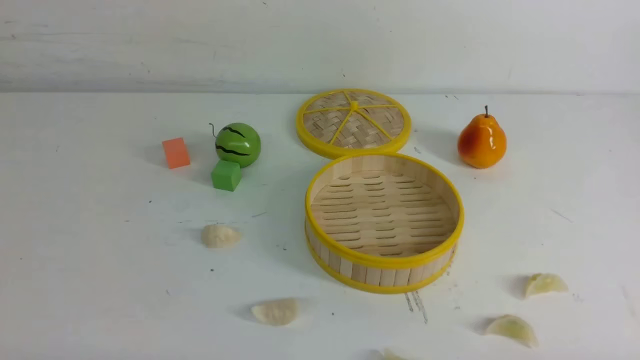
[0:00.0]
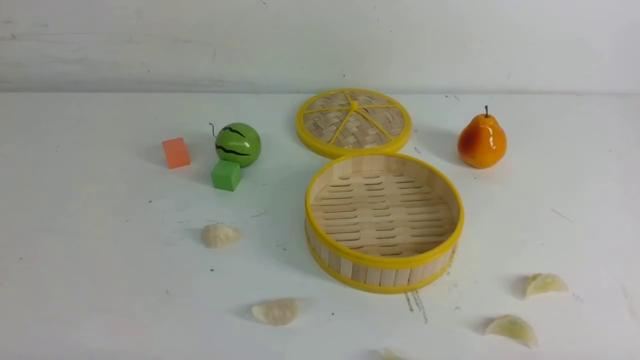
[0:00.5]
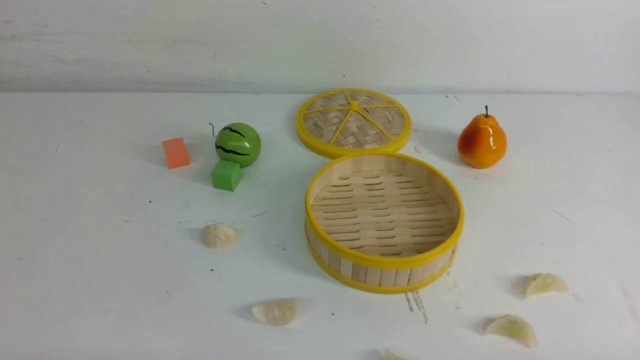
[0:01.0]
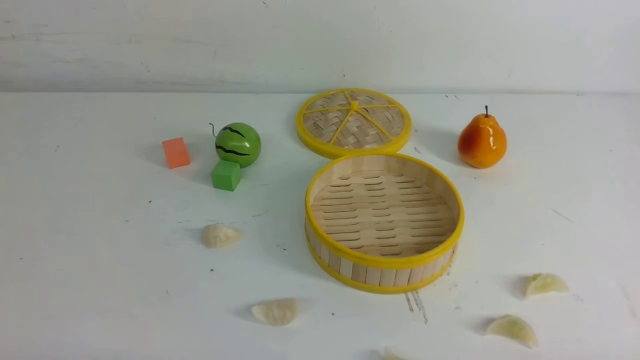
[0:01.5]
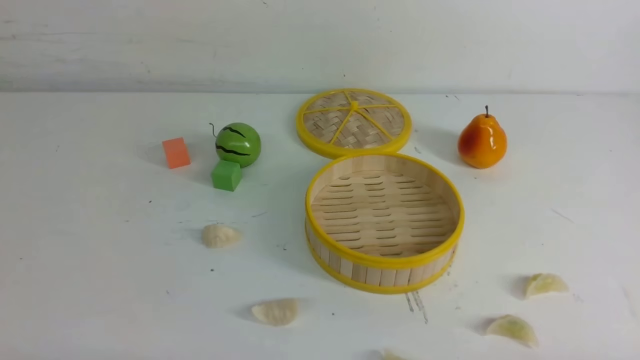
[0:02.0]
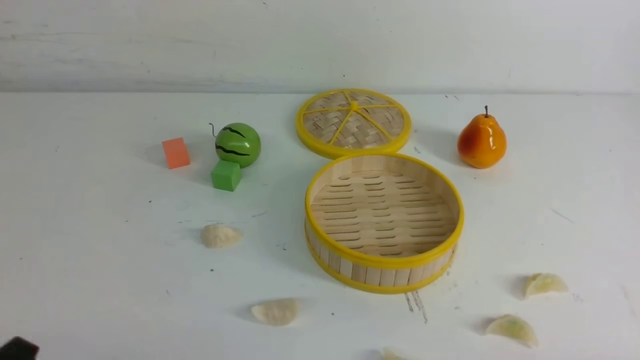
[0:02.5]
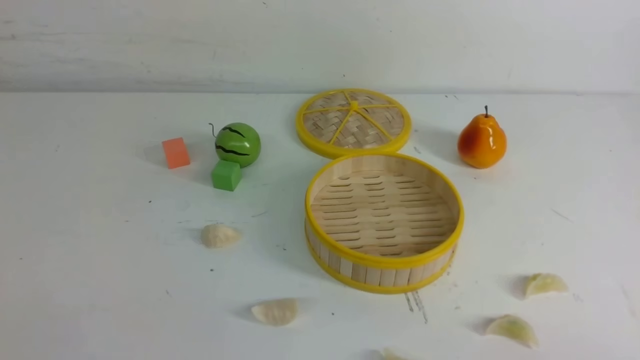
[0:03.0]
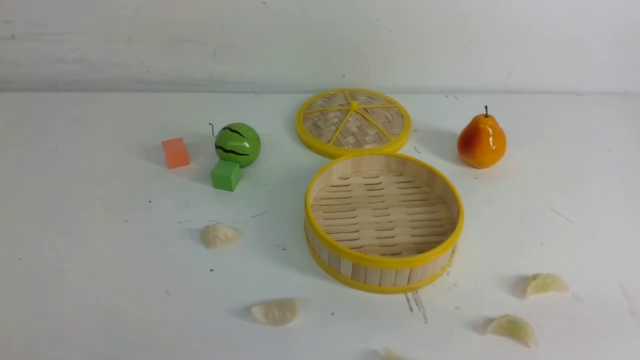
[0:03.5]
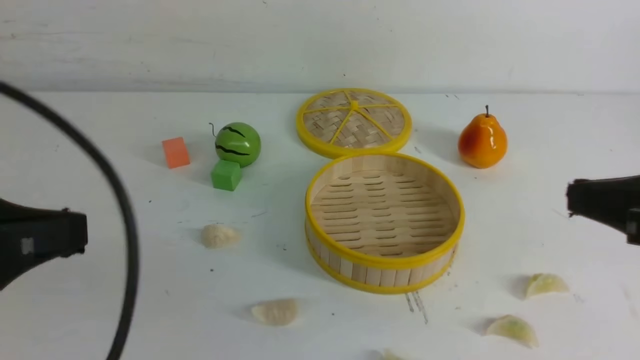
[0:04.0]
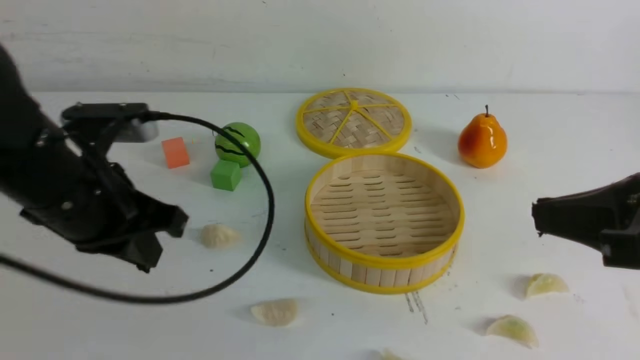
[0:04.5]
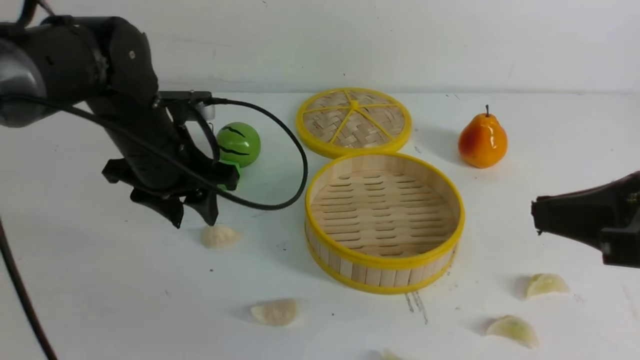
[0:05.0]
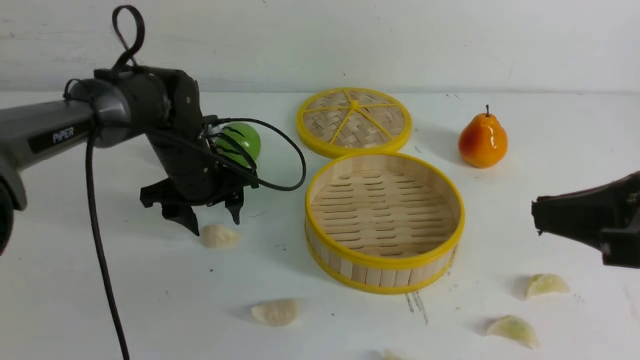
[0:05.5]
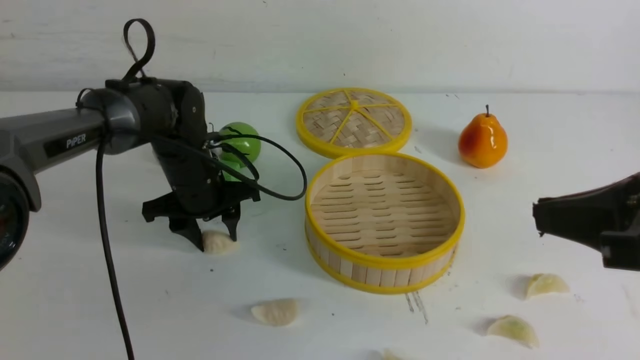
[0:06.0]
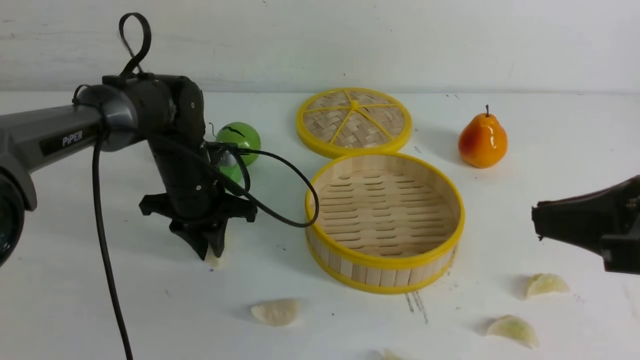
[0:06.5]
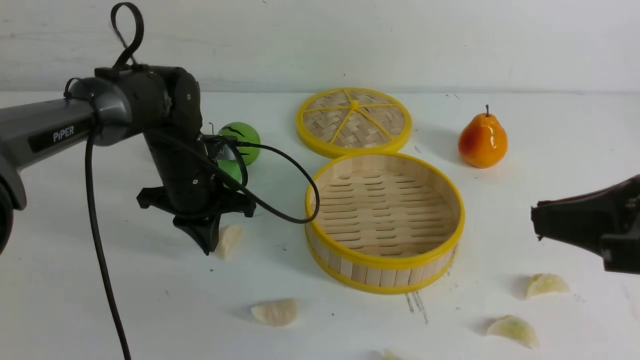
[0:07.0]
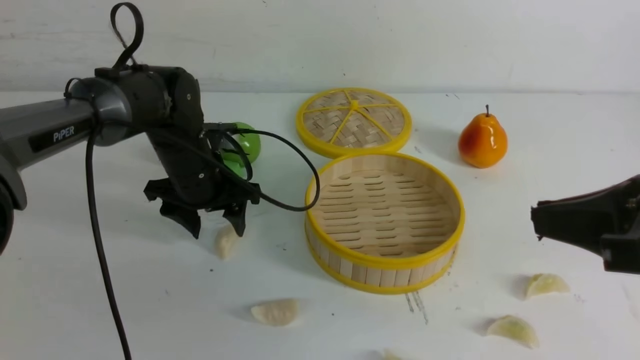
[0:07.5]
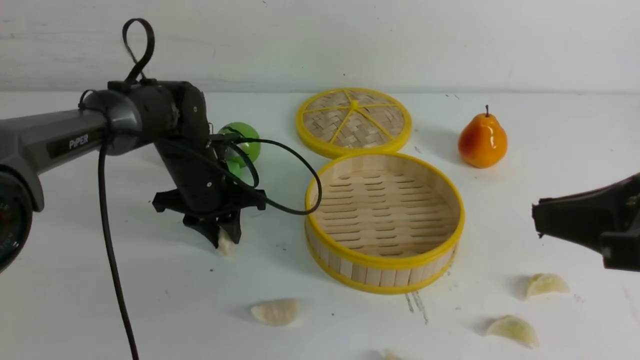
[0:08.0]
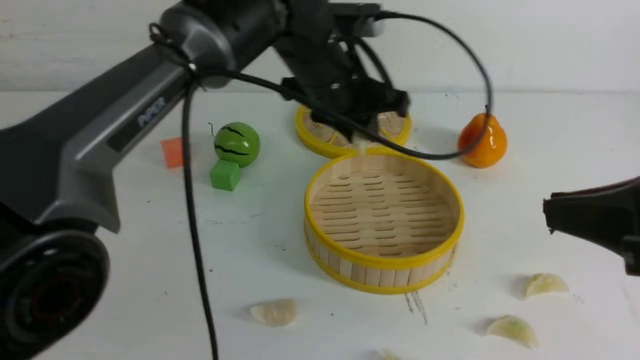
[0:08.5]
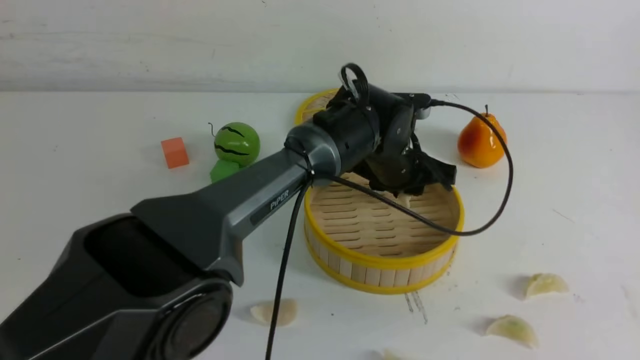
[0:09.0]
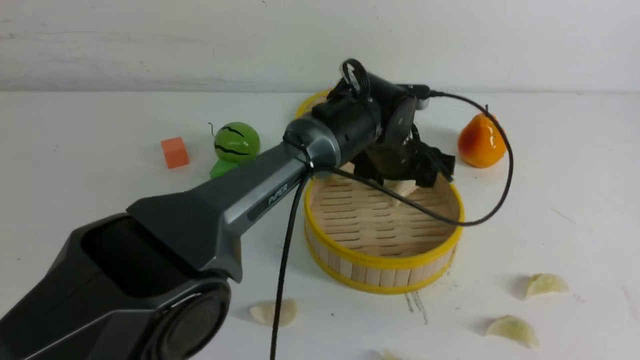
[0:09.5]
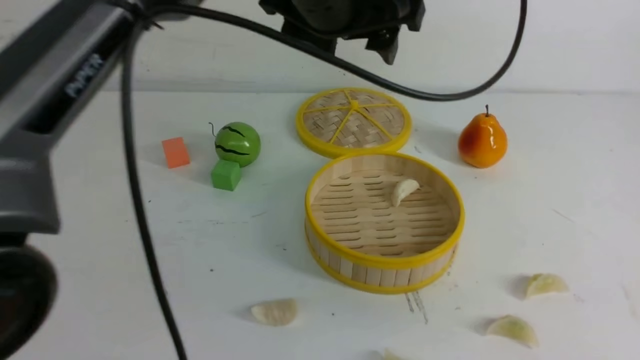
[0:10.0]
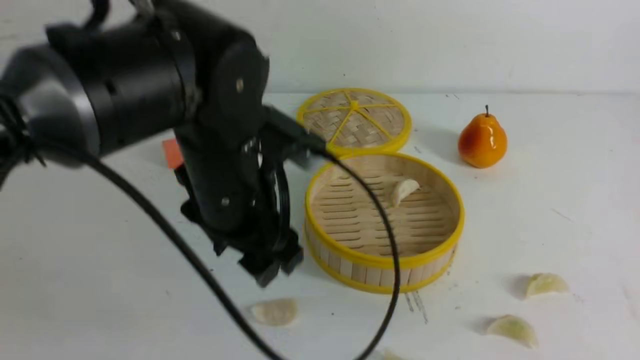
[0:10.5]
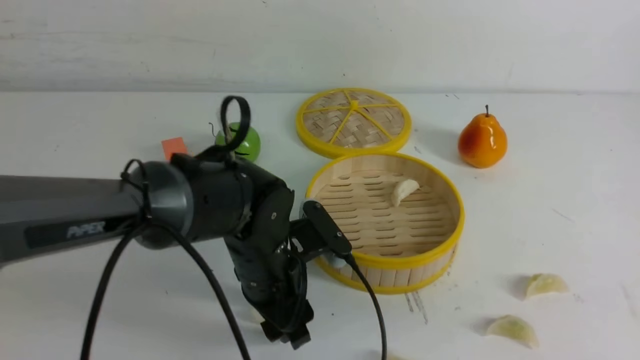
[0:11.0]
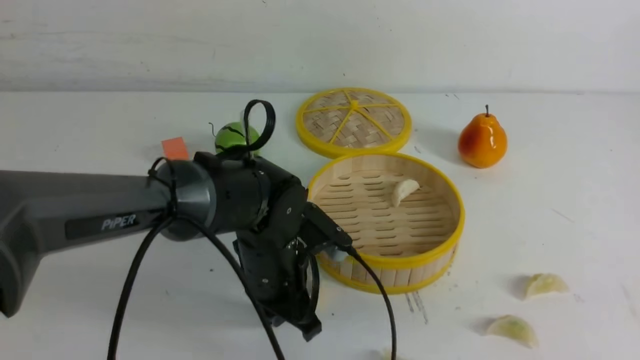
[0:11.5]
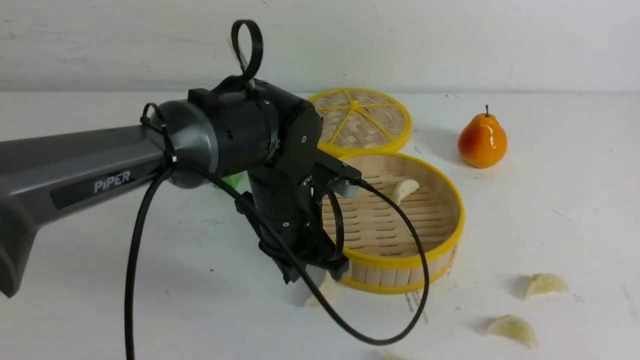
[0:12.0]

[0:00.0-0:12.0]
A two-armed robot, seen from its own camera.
Task of the whole recording: put the dumplings into the steamer on the white table.
Step, 0:00.0 to 0:08.0: use the left arm to grab a dumpling.
Step, 0:08.5 to 0:09.5: use the left arm to put the dumpling into the steamer.
0:00.0 to 0:02.0: Both grippers stay put.
0:02.0 to 0:04.0: The right gripper goes roughly 20 cm upward and forward, and closes; the left gripper heads upward, covering about 20 cm, and closes its fingers.
0:04.0 to 0:06.0: The left gripper heads forward and downward, covering about 35 cm, and opens up.
0:06.0 to 0:08.0: The left gripper closes and opens again.
0:08.0 to 0:10.0: The left gripper swings up and down, approximately 25 cm each way, with 2 reversals, and opens up; the right gripper is displaced backward by roughly 10 cm.
0:10.0 to 0:12.0: The left gripper travels downward by roughly 20 cm, and closes its fingers.

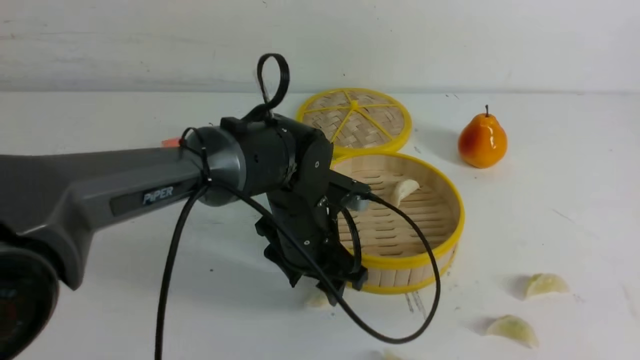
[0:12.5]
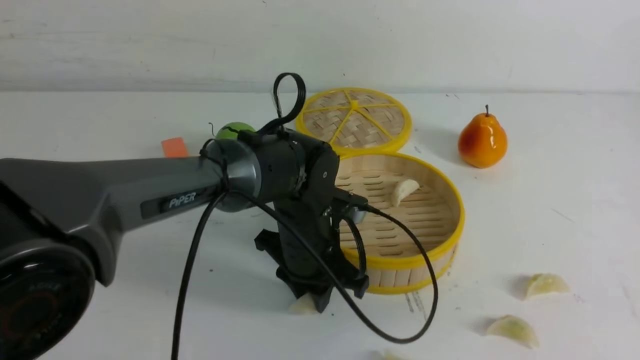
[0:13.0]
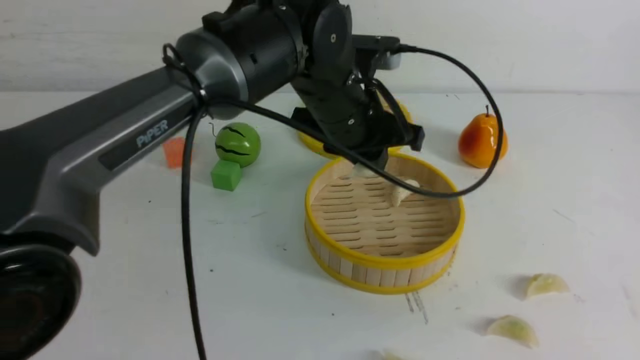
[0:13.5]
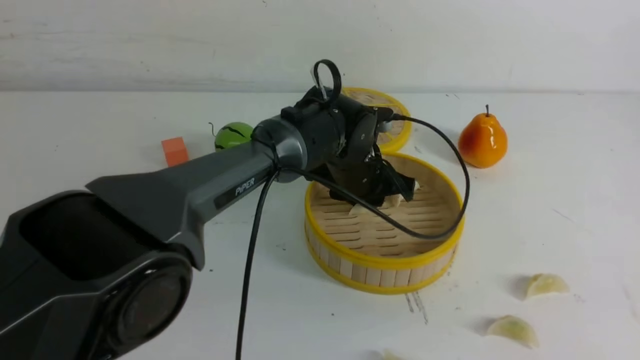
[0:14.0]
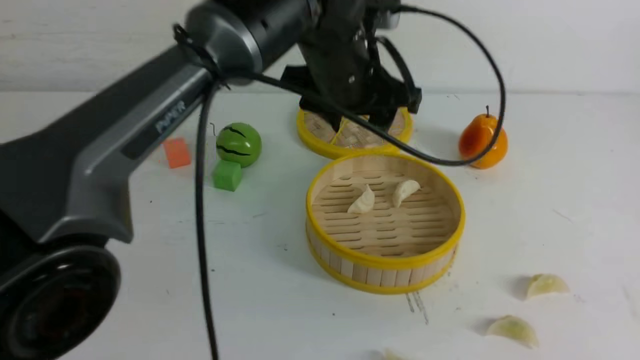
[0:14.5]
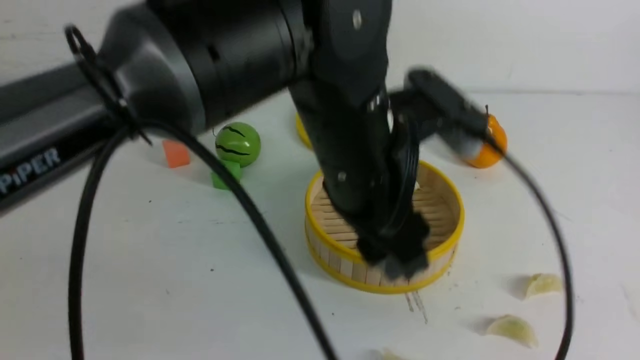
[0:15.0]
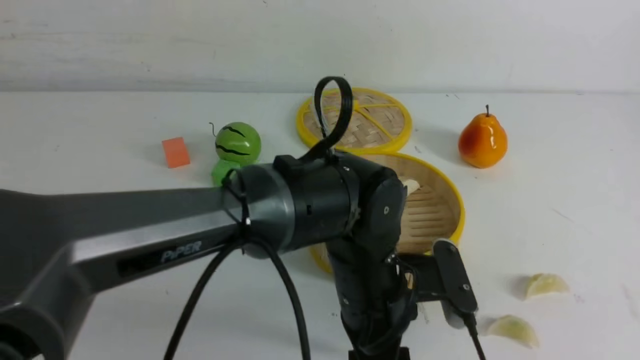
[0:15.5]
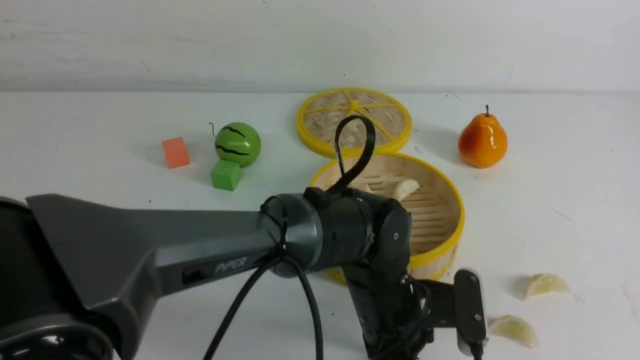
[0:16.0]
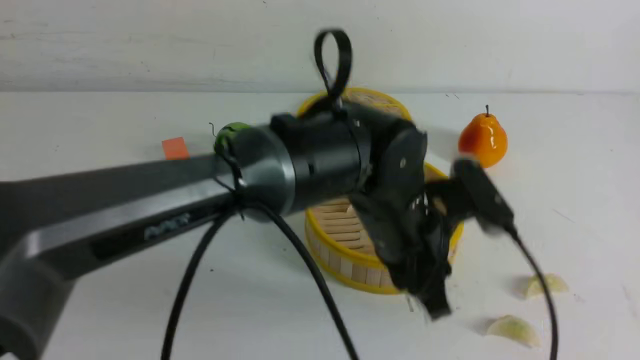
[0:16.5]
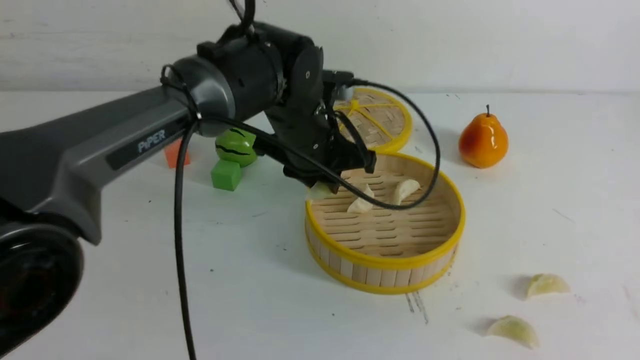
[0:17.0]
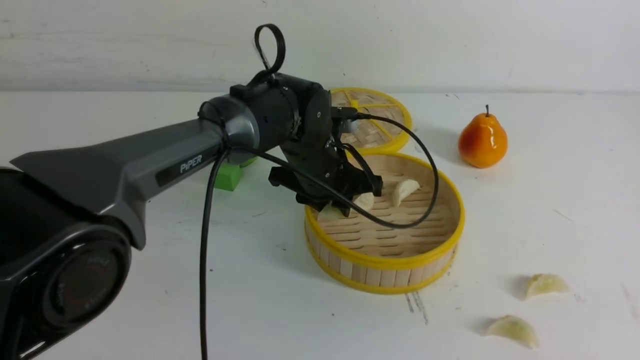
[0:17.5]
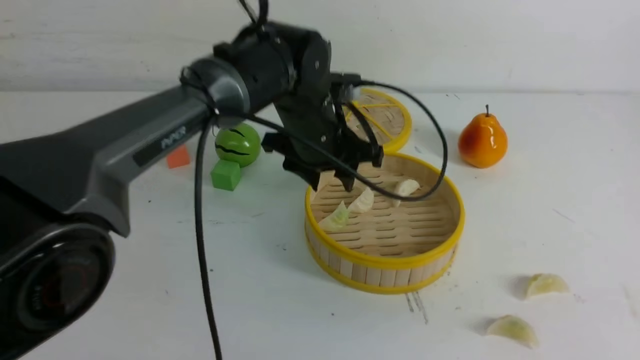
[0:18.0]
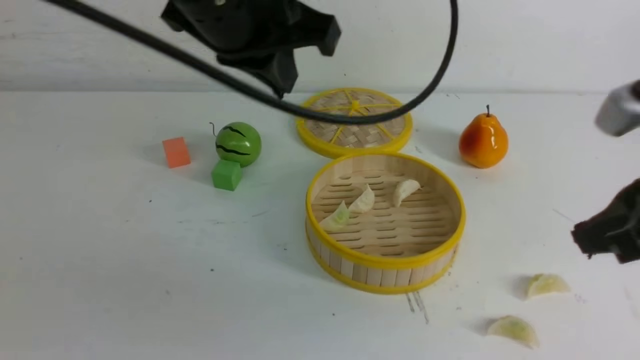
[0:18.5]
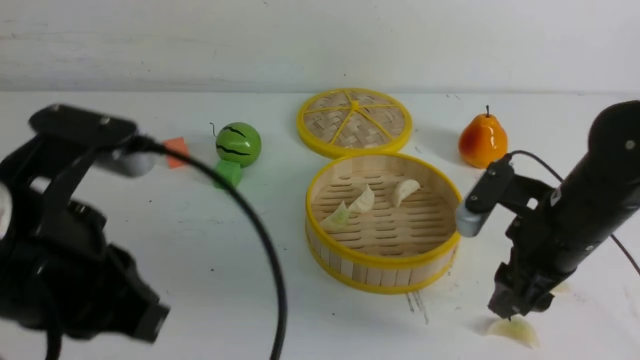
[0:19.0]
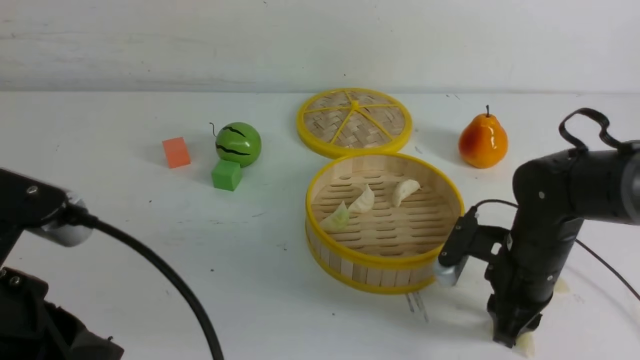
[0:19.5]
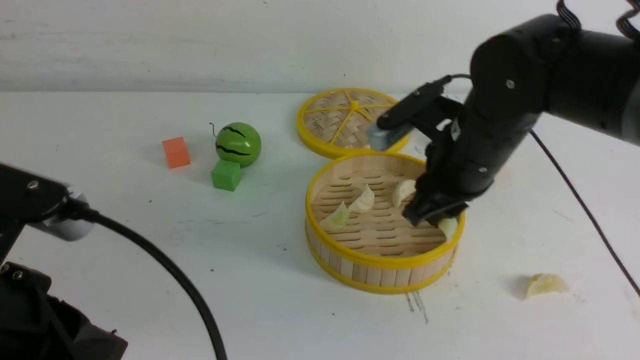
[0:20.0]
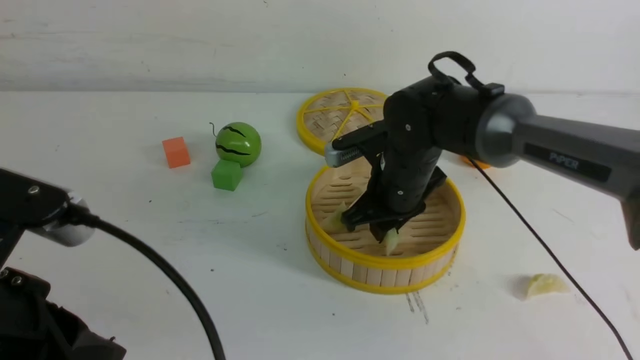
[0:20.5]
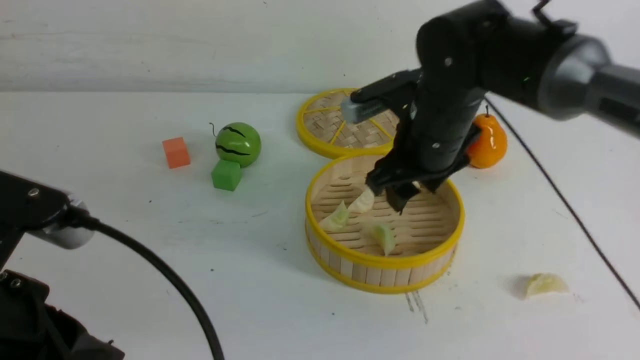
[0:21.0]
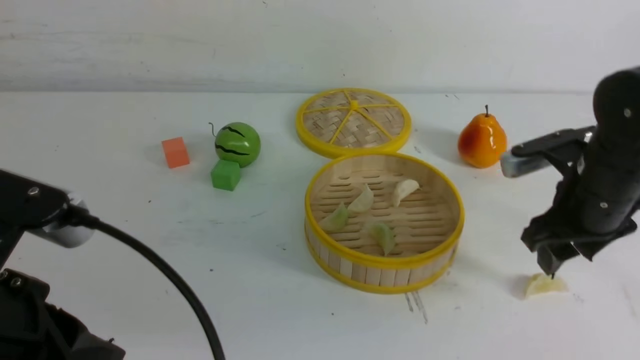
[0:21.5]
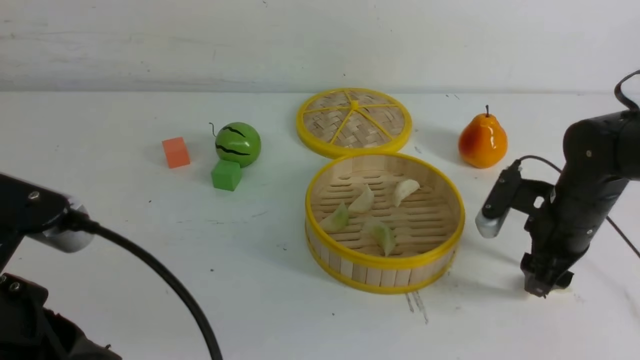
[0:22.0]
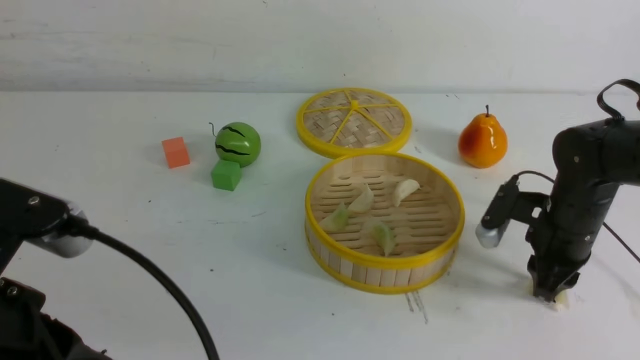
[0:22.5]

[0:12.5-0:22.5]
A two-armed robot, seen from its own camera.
Task of the whole recording: put the dumplings into the steamer on the white table.
Step, 0:13.5 to 0:14.0: use the left arm to put the dumpling into the steamer.
Step, 0:14.5 to 0:16.0: use the left arm to grab a dumpling.
Step, 0:16.5 to 0:17.5: use the left arm to put the dumpling into the steamer.
Step, 0:18.0 to 0:19.5: use the right arm to grab a dumpling.
Step, 0:20.0 to 0:20.5: use the right arm to put the dumpling into the steamer.
Step, 0:21.0 to 0:22.5: use the right arm to grab a dumpling.
0:12.5 to 0:14.5: The left gripper moves up and down over roughly 15 cm, changing direction 2 times, and closes, then opens again.
0:14.5 to 0:16.5: The left gripper goes some 10 cm downward and backward, and closes.
0:16.5 to 0:18.5: The left gripper is displaced upward and to the left by roughly 20 cm, while the right gripper moves forward, about 15 cm, and closes up.
0:18.5 to 0:20.5: The left gripper moves backward, to the left and downward, approximately 25 cm, while the right gripper travels forward, to the left and downward by some 30 cm, and opens up.
0:20.5 to 0:22.5: The right gripper is displaced to the right by about 15 cm, and opens and closes again.
